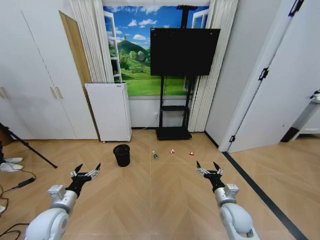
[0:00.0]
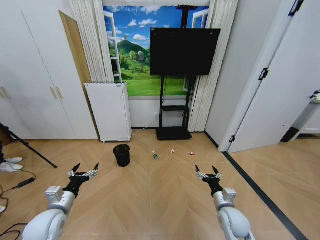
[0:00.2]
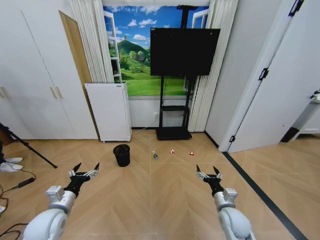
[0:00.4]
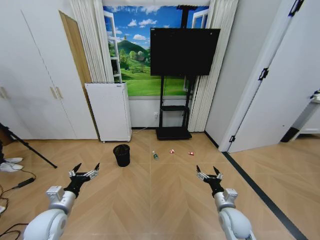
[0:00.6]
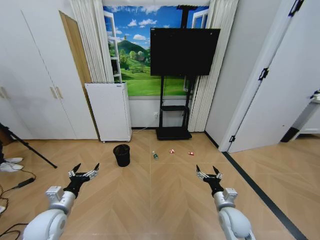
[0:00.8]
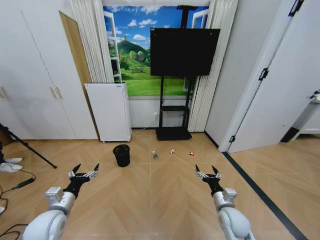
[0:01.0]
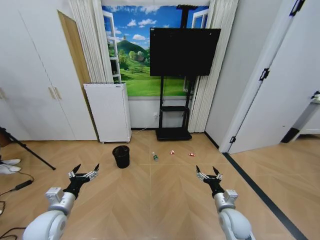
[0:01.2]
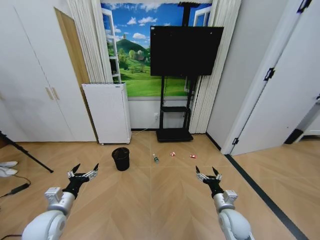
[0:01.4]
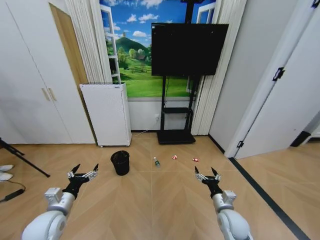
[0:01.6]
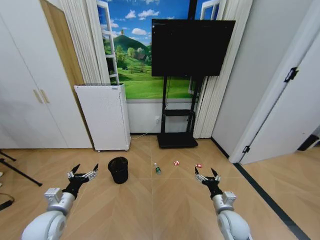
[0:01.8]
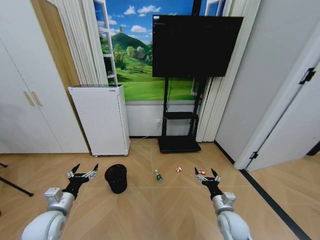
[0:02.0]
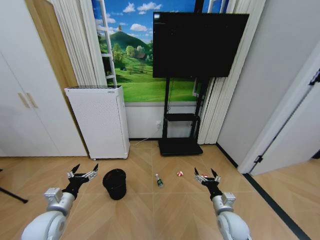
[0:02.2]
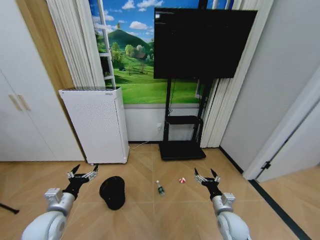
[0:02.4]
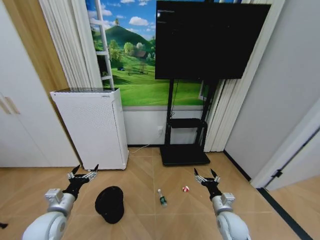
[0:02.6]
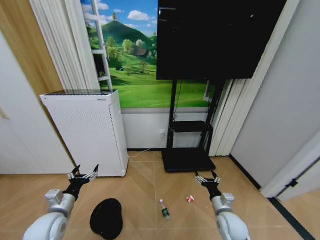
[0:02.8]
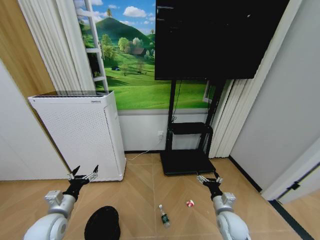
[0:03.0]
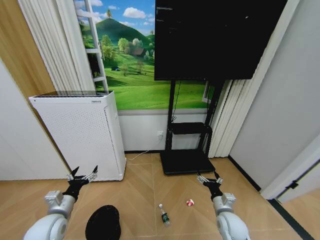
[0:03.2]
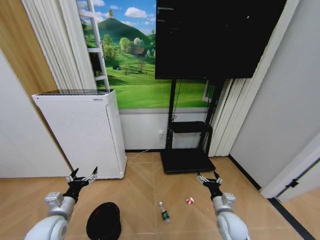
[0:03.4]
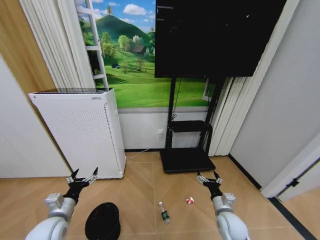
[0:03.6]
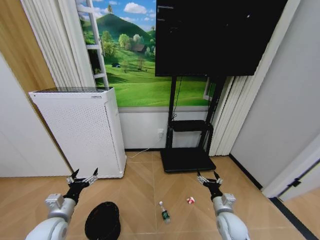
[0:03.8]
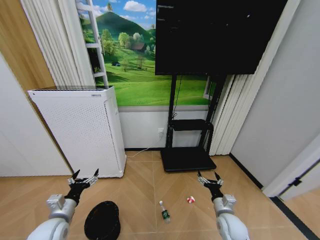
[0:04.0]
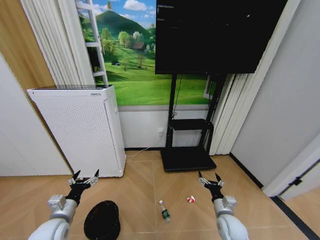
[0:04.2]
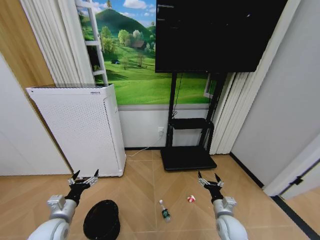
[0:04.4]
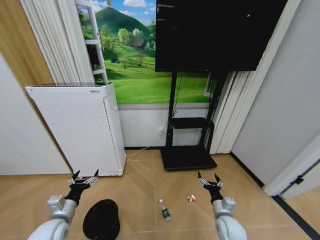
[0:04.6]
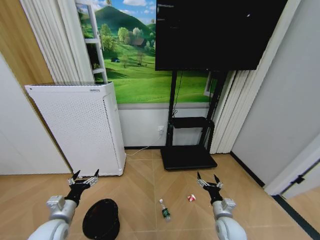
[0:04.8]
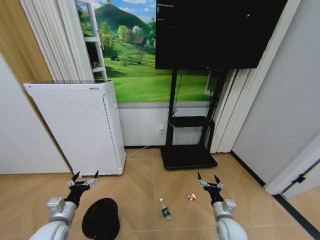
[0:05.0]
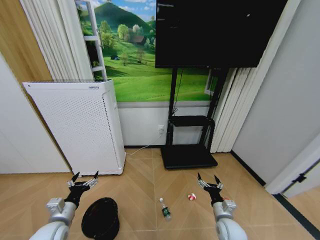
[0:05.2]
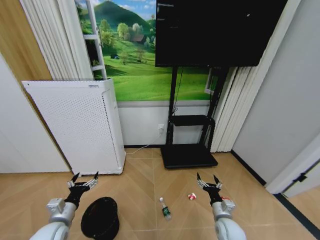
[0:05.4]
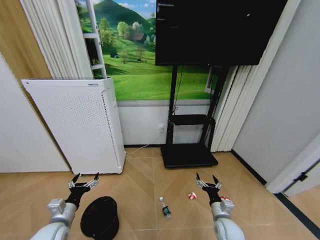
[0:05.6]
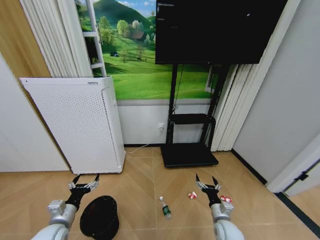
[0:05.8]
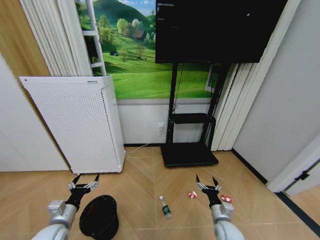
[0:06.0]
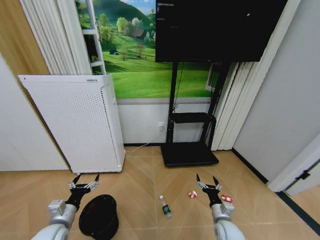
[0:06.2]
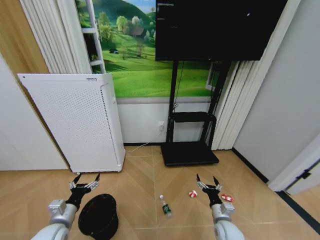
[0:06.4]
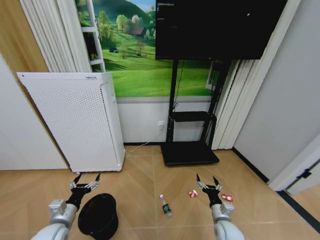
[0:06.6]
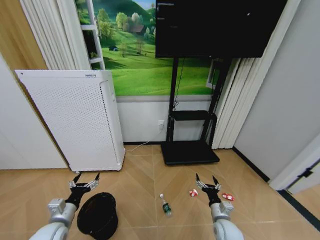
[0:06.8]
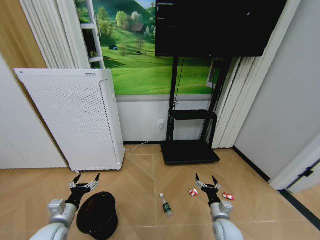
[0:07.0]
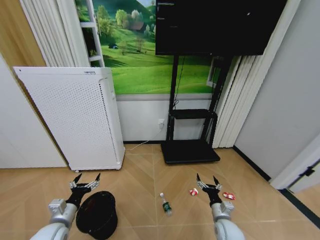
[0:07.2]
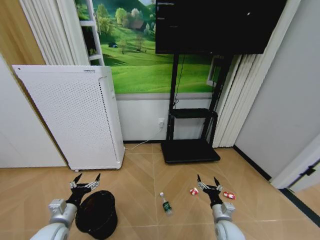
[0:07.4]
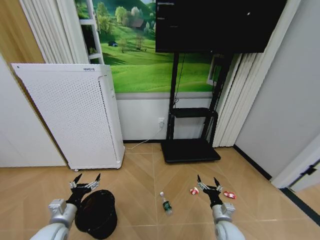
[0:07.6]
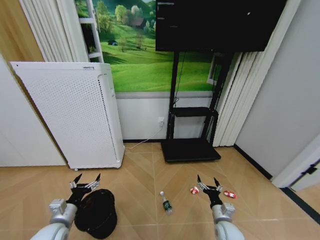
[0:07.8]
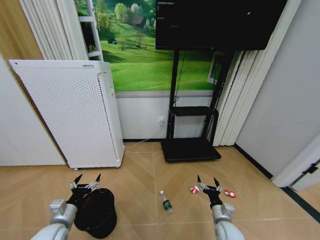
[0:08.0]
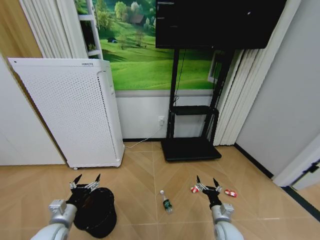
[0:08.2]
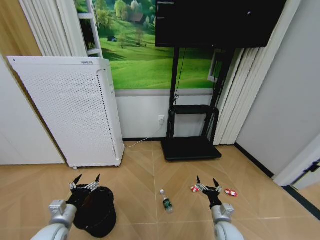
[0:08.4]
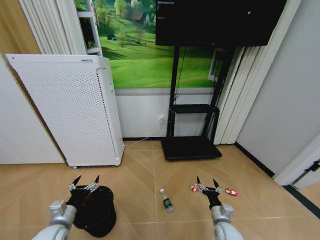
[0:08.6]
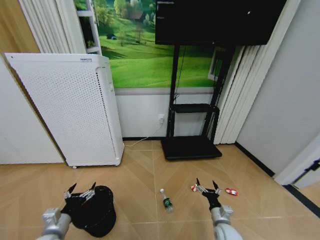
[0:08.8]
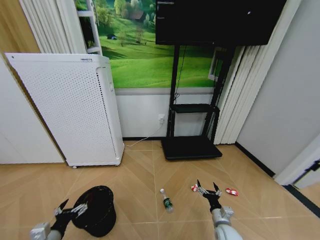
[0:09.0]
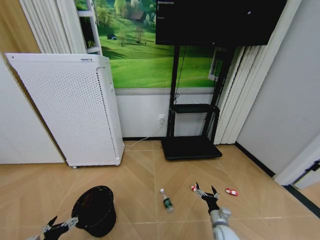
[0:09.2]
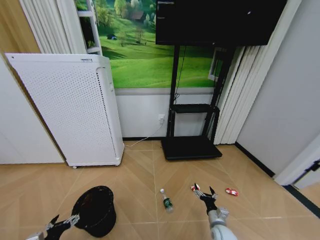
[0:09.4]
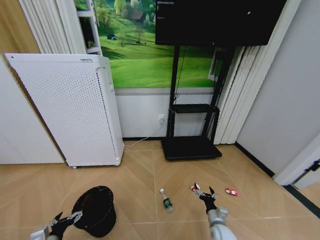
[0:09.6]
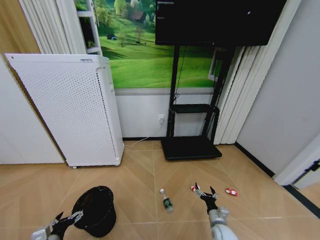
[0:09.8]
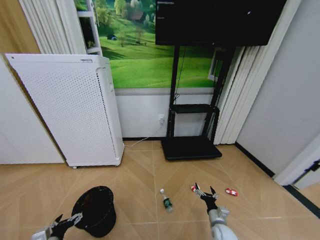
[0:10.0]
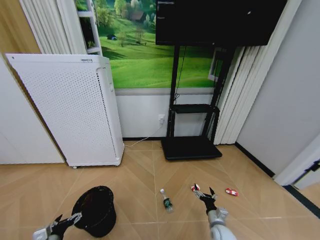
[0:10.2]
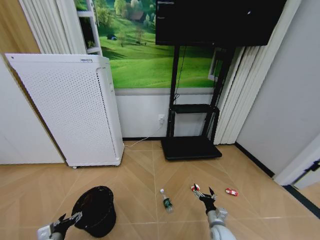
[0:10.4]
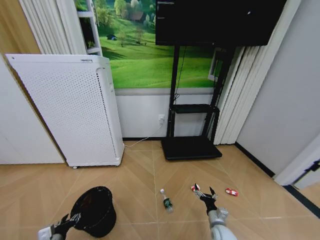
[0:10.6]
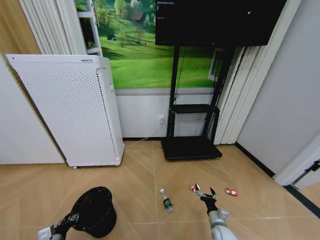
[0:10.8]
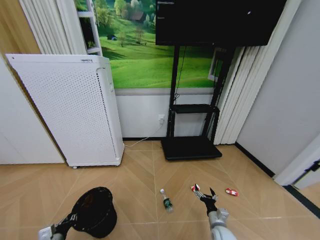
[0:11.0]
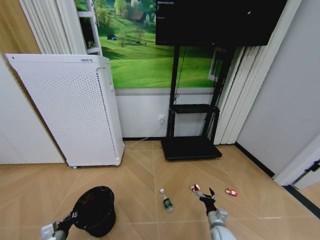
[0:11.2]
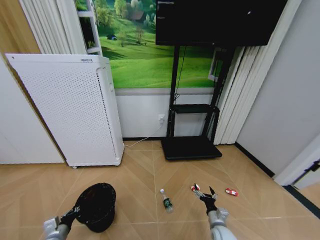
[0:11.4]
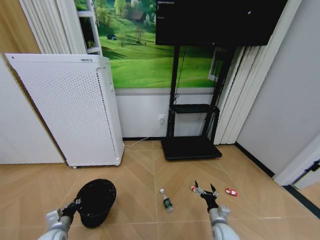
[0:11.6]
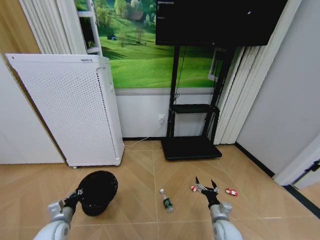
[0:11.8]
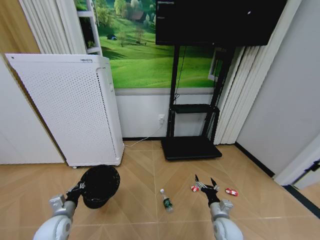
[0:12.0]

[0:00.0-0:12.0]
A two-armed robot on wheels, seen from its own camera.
Task of the whole recording: Pick up the trash bin and place the garbage on the floor into it.
0:04.4 to 0:06.0: The grippers make only small movements.
0:06.0 to 0:07.6: Neither gripper changes place.
0:07.6 to 0:09.0: The left gripper shifts approximately 5 cm backward.
0:09.0 to 0:10.4: The left gripper heads downward, covering about 5 cm.
0:10.4 to 0:12.0: The left gripper shifts approximately 10 cm forward and upward, and closes. The right gripper travels upward by some 5 cm.

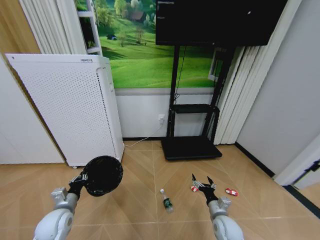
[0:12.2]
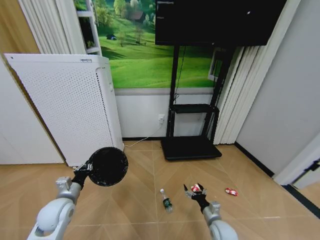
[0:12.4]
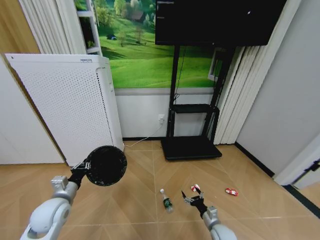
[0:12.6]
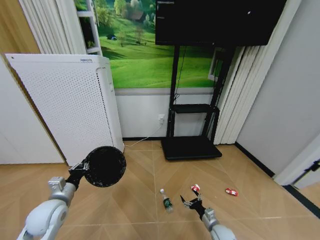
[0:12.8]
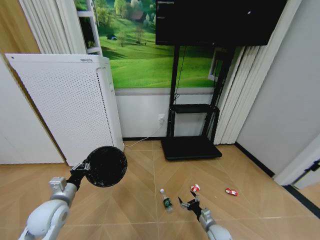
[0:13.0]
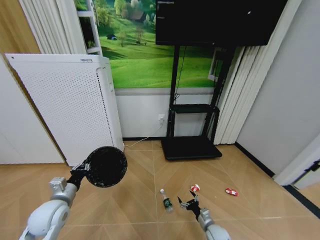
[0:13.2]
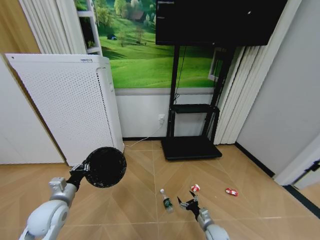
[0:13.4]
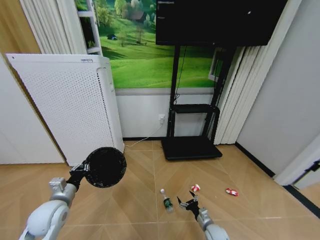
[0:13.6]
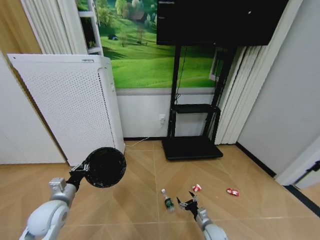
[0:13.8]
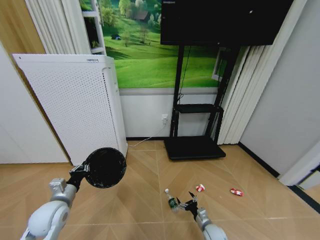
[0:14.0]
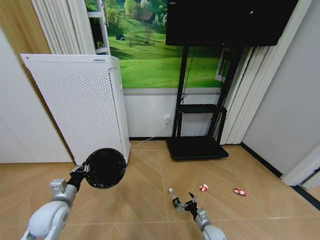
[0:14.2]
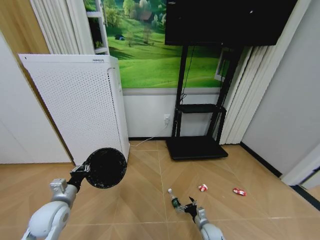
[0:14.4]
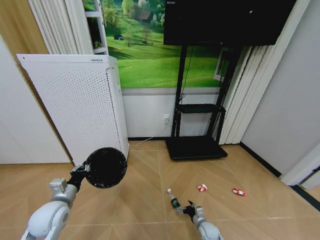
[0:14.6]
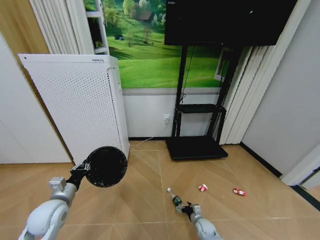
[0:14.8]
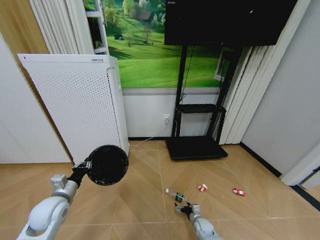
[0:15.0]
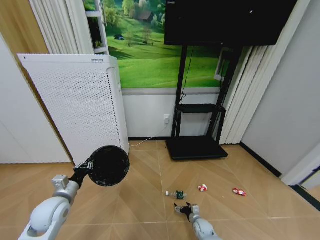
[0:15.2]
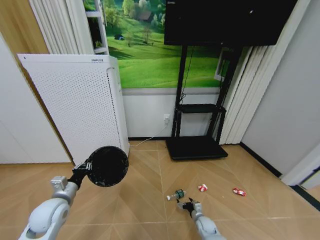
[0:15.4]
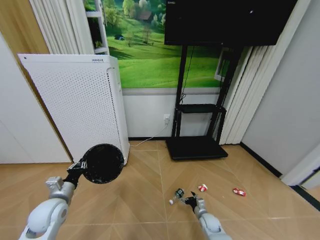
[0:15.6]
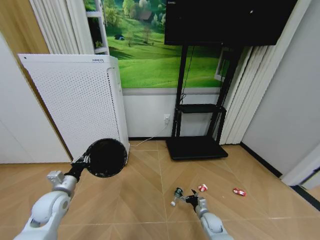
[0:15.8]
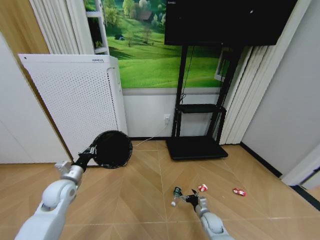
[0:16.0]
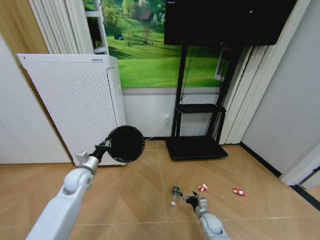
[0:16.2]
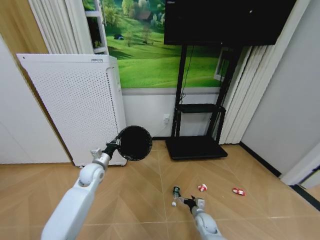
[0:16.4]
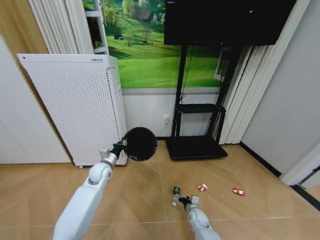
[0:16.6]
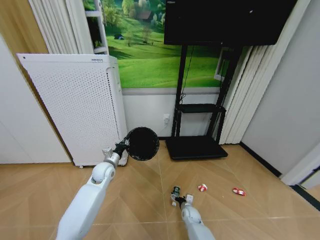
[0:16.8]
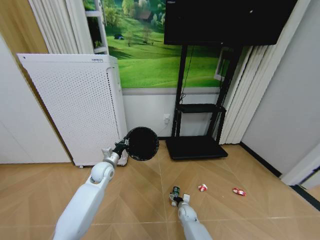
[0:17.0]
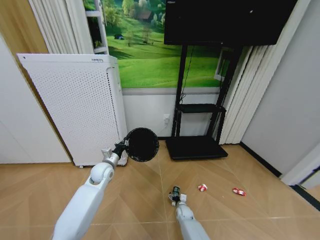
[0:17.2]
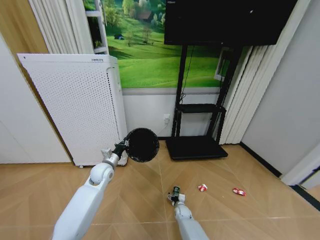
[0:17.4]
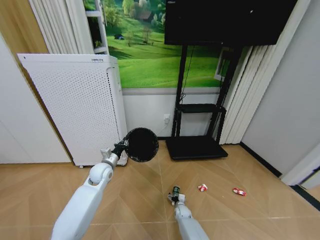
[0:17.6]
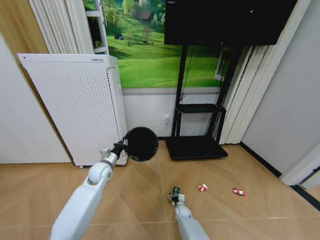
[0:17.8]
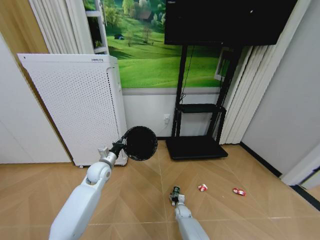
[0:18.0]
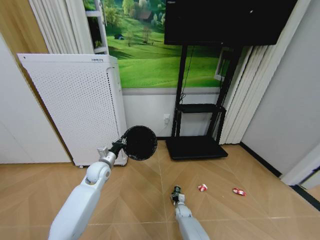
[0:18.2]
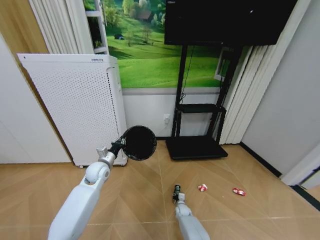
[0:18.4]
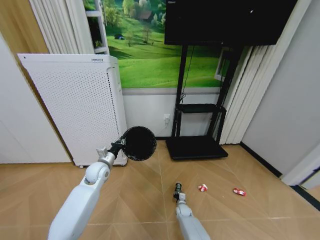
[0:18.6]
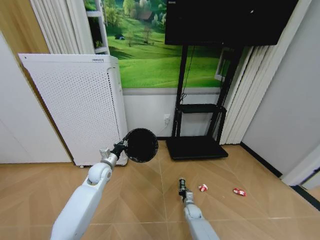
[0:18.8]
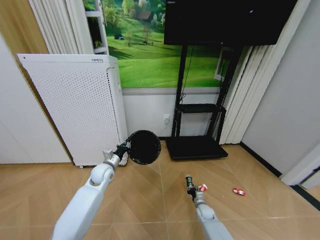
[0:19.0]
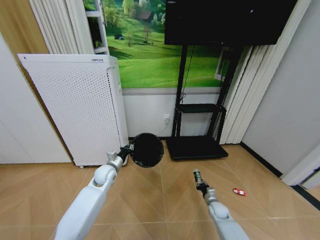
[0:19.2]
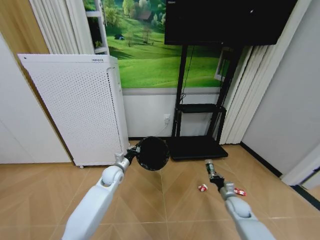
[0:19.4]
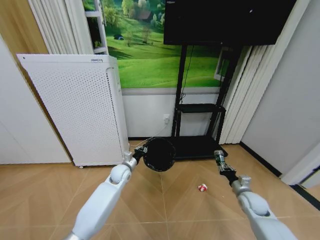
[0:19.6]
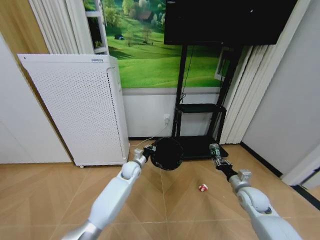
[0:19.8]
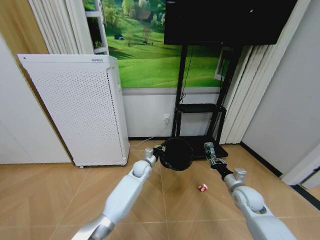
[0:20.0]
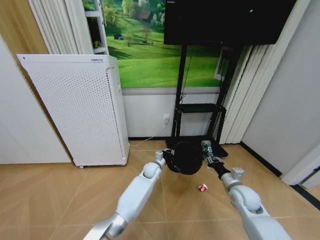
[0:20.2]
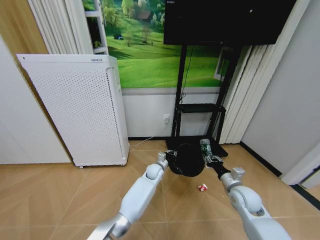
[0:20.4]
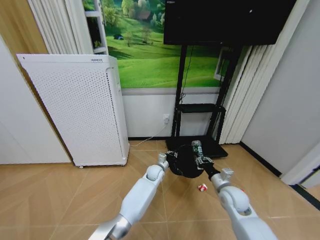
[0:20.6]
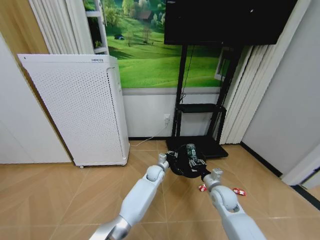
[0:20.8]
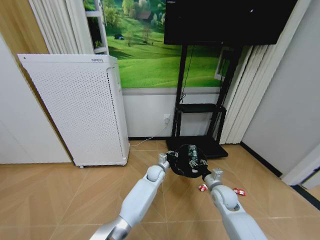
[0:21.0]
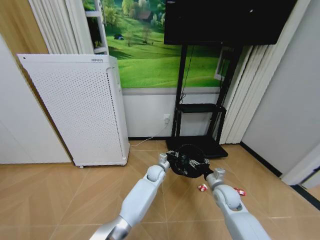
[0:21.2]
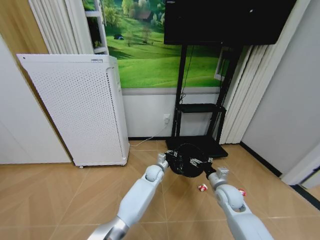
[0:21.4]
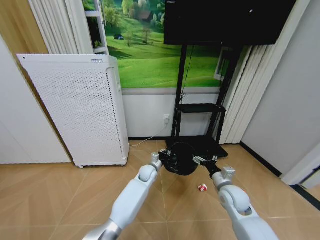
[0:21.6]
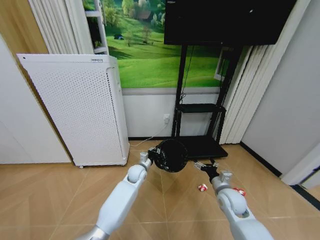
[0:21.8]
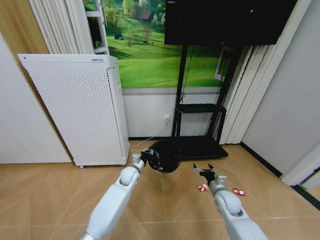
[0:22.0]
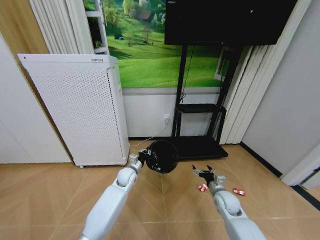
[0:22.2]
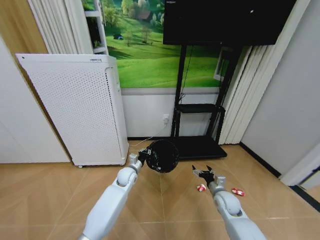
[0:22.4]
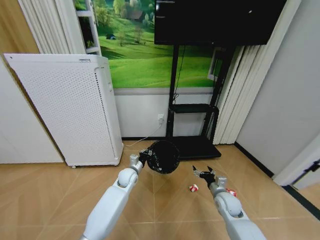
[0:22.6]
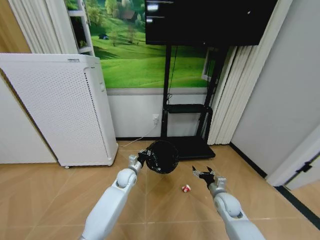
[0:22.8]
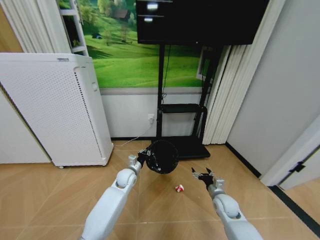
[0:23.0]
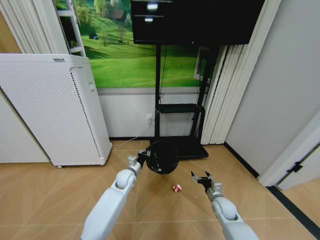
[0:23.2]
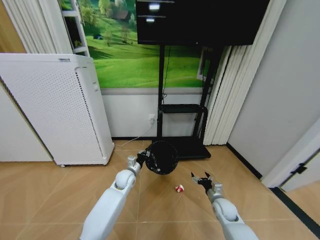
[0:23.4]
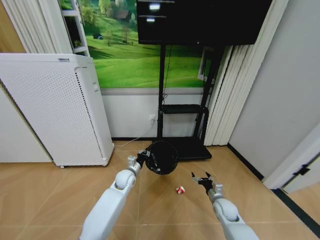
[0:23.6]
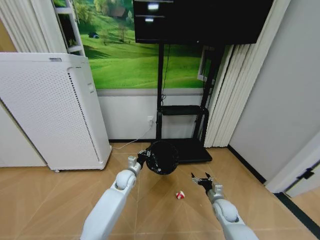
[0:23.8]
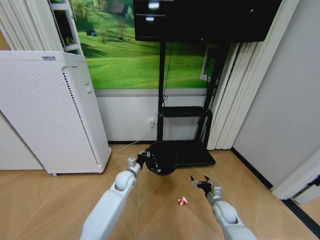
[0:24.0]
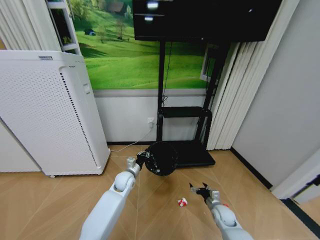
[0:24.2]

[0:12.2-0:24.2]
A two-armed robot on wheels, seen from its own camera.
Task of the whole recording: Pick up the trash bin and place the garbage on the floor into it.
0:12.2 to 0:13.8: The left gripper goes some 5 cm upward, while the right gripper shifts approximately 10 cm downward.
0:13.8 to 0:15.2: The right gripper moves downward, some 5 cm.
0:15.2 to 0:16.6: The left gripper shifts approximately 20 cm forward and to the right, while the right gripper travels upward by some 5 cm.
0:16.6 to 0:18.2: The right gripper heads downward and to the left, covering about 10 cm, and closes its fingers.
0:18.2 to 0:19.8: The left gripper is displaced to the right and downward by approximately 15 cm. The right gripper moves upward and to the right, roughly 40 cm, and closes.
0:19.8 to 0:21.2: The left gripper goes some 15 cm to the right; the right gripper travels to the left by about 10 cm, and opens.
0:21.2 to 0:22.6: The left gripper moves to the left, about 15 cm.
0:22.6 to 0:24.2: The right gripper heads downward, covering about 10 cm.
